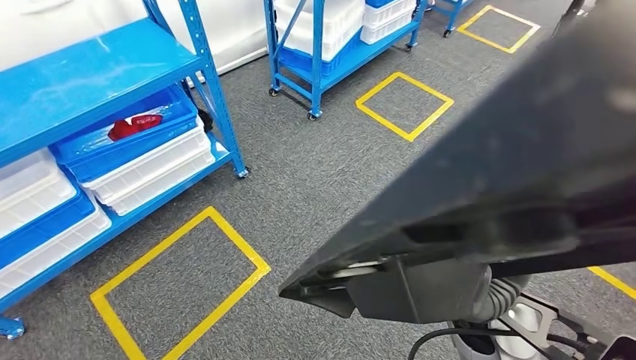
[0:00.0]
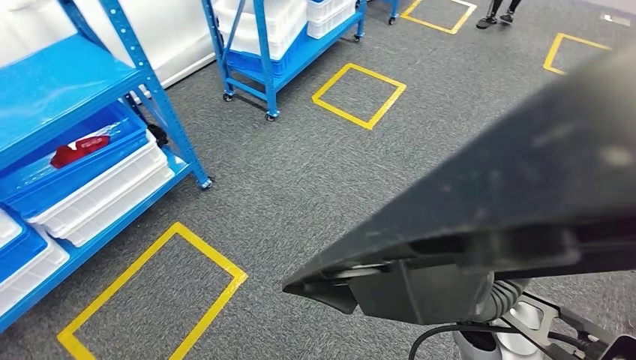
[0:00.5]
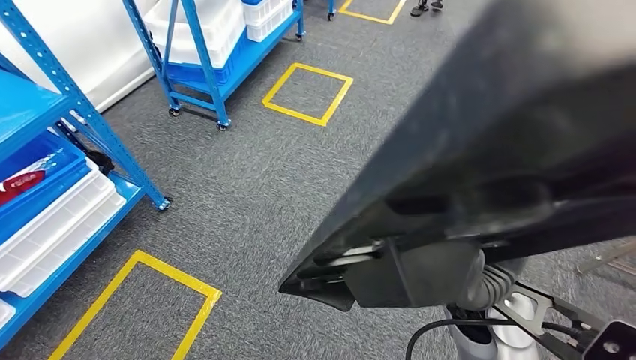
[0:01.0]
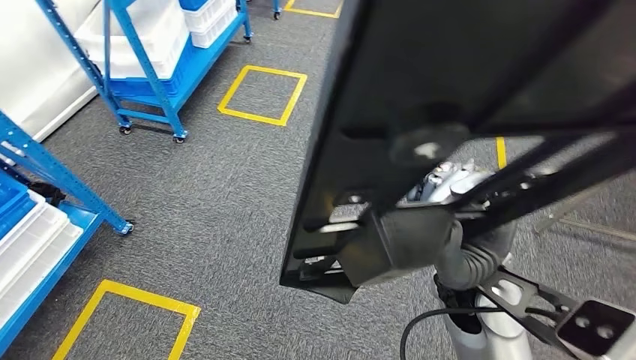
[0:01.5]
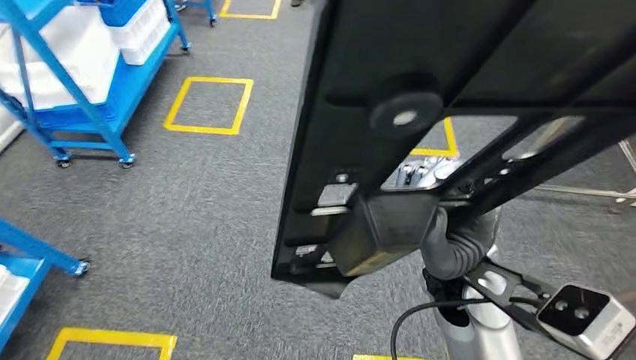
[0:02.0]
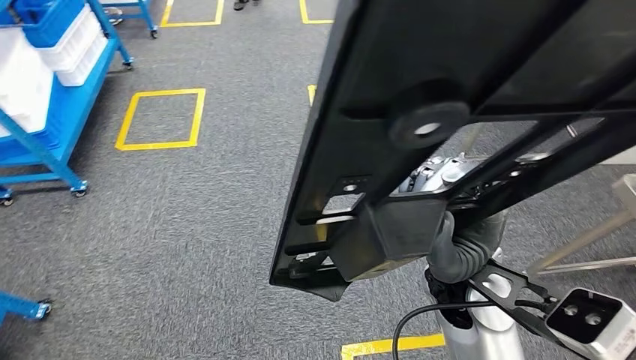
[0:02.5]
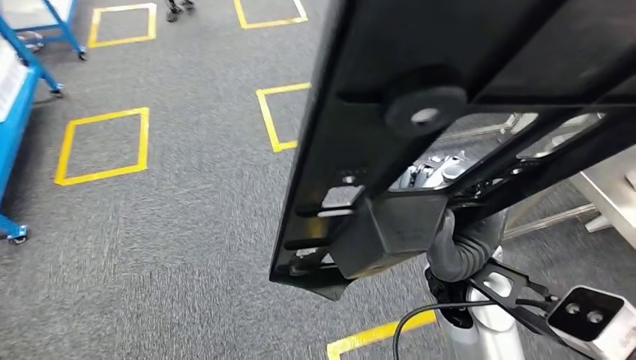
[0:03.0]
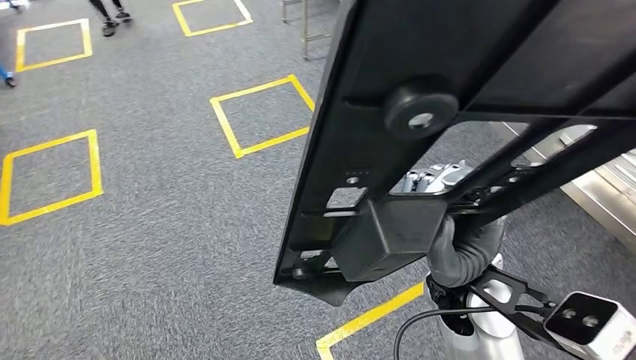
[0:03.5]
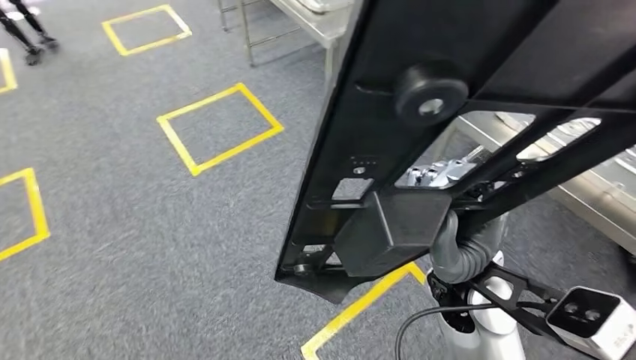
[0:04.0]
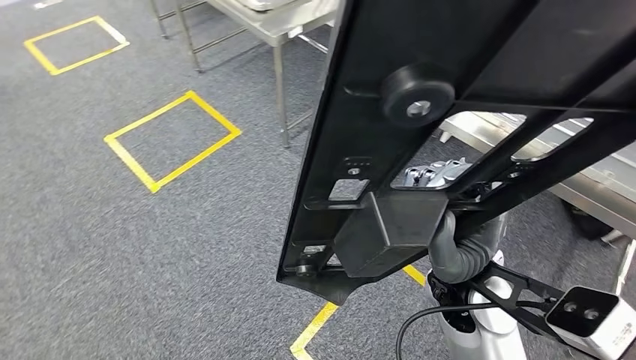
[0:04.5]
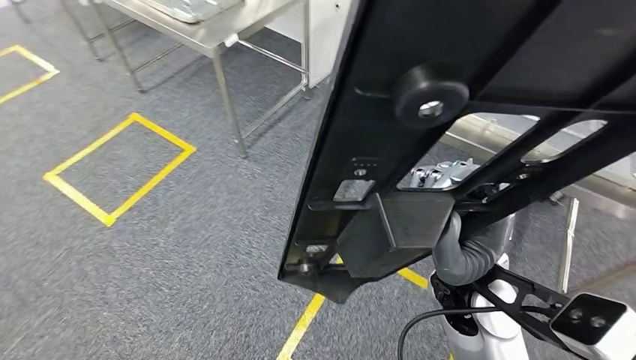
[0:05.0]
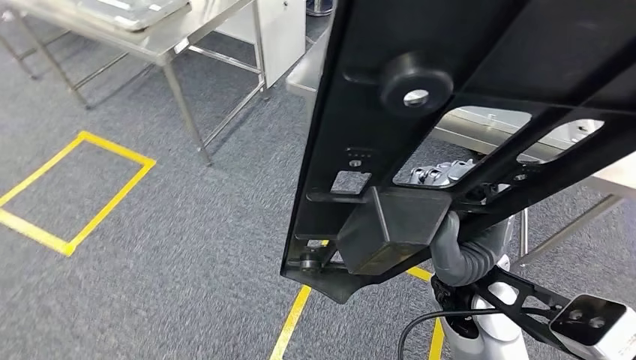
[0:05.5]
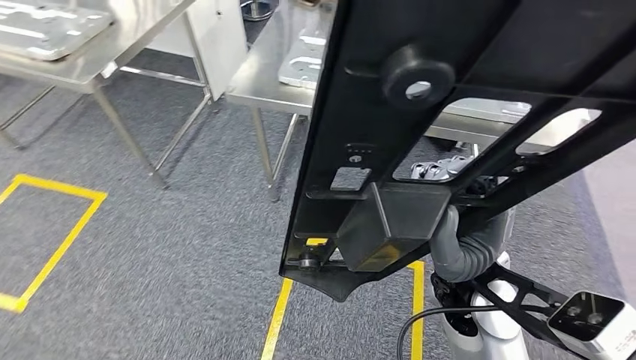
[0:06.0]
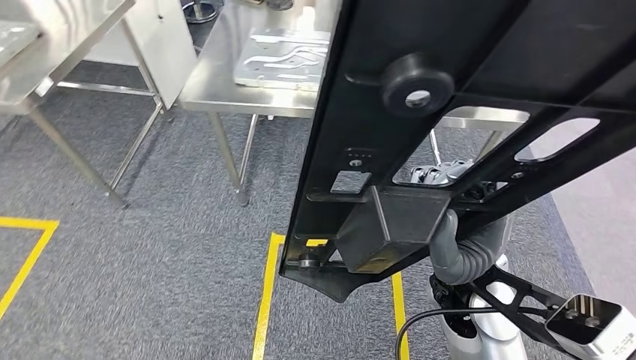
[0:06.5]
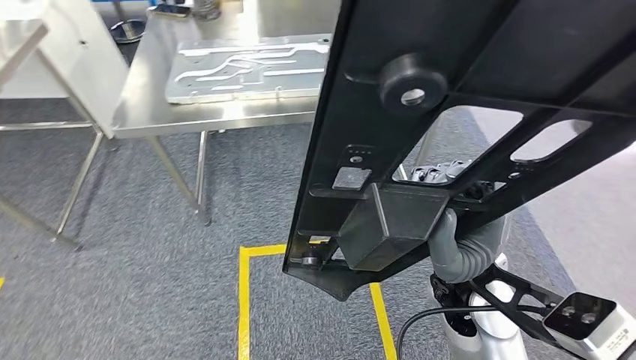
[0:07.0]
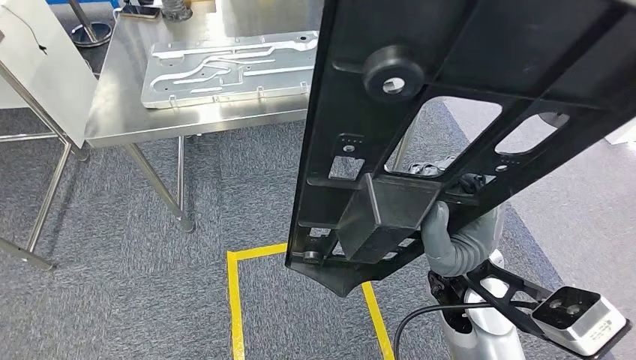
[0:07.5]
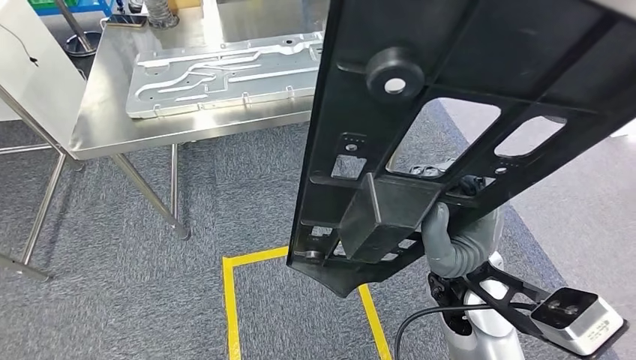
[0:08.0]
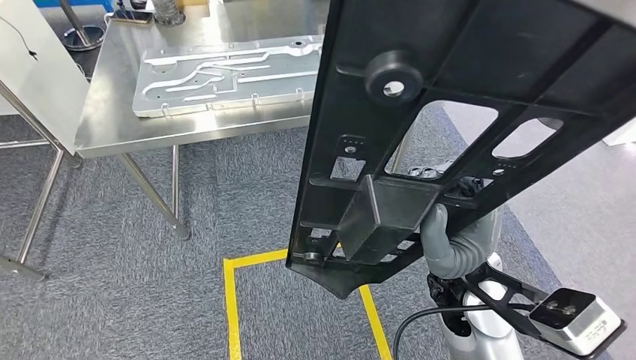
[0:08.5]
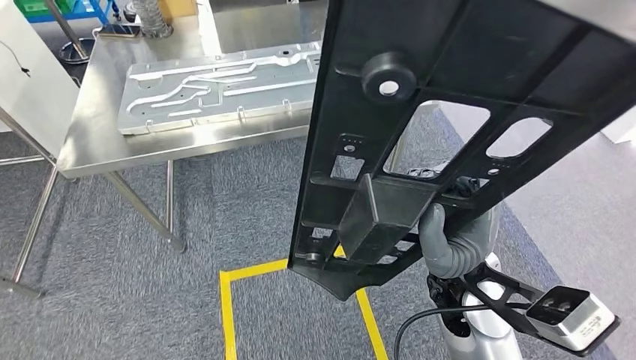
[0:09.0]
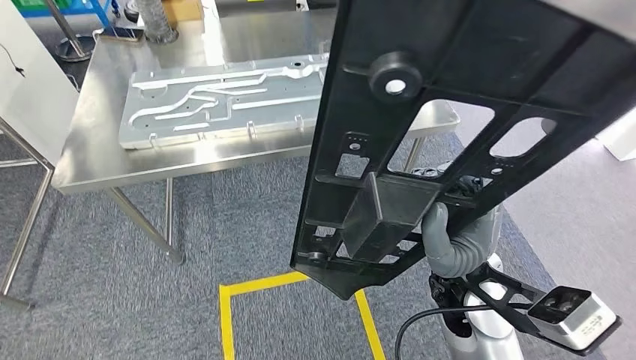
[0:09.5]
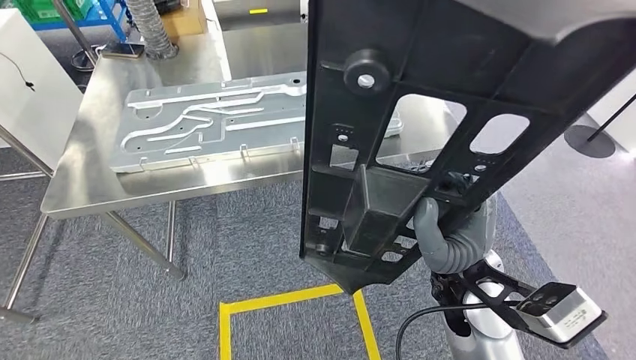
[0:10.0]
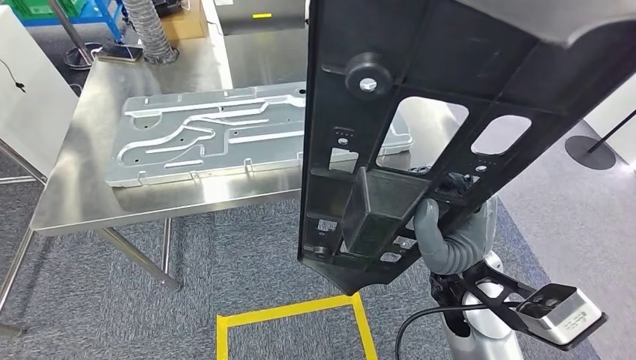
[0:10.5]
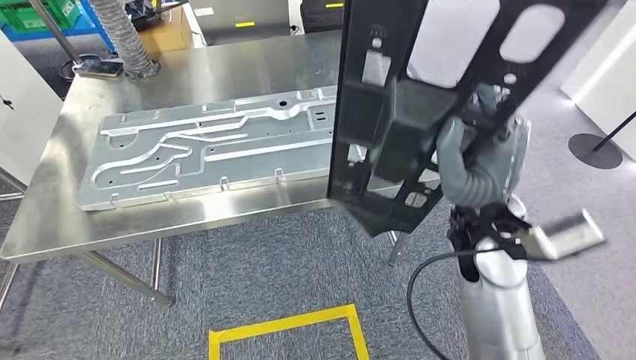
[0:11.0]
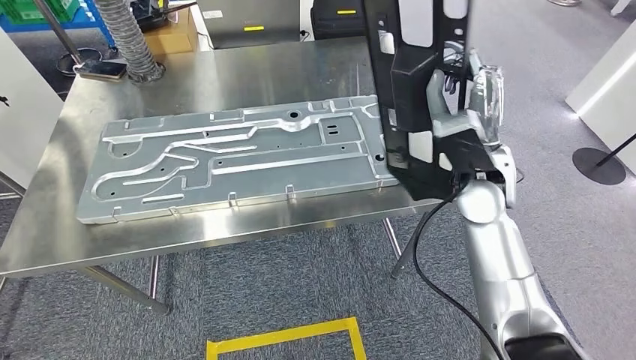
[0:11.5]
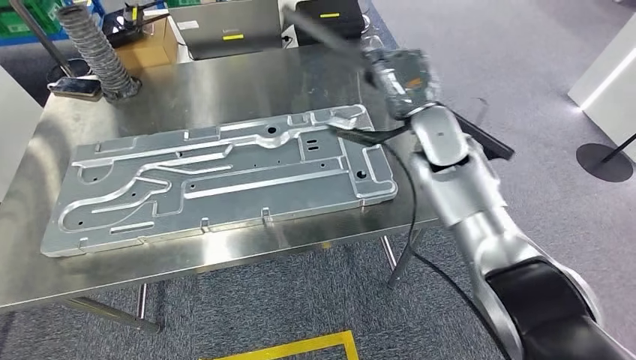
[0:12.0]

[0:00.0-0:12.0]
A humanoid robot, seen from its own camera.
Step, 0:00.0 to 0:11.5: Move the large material to the workbench.

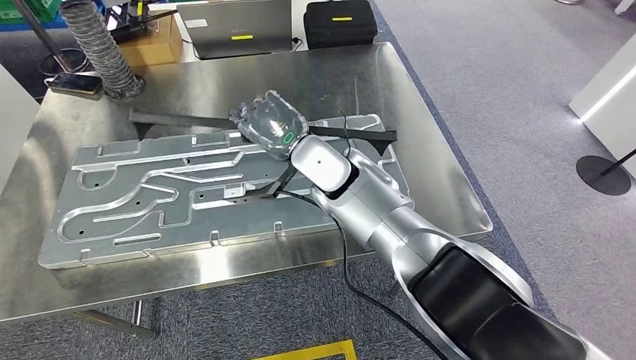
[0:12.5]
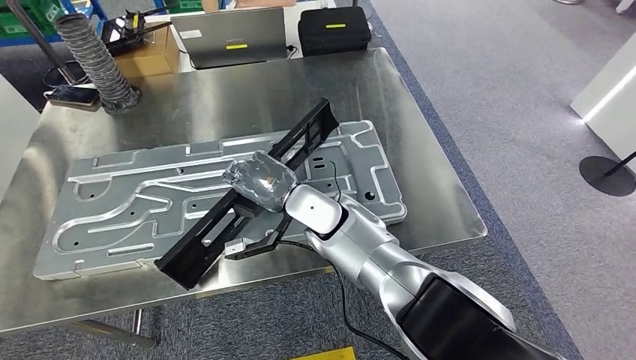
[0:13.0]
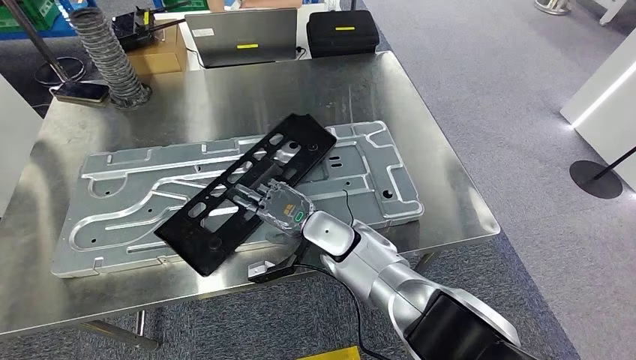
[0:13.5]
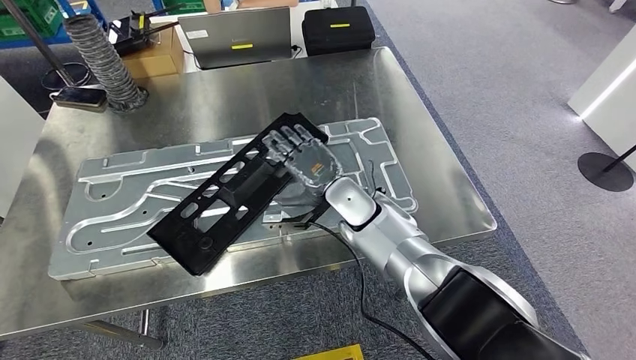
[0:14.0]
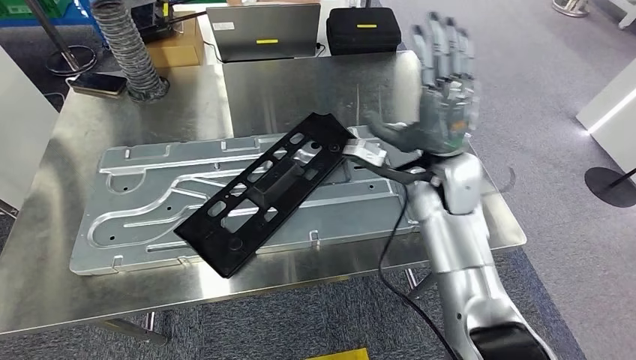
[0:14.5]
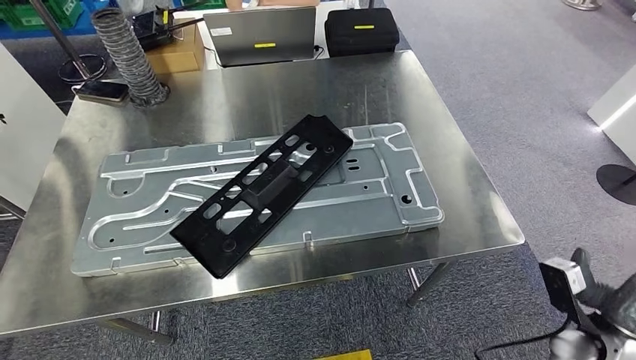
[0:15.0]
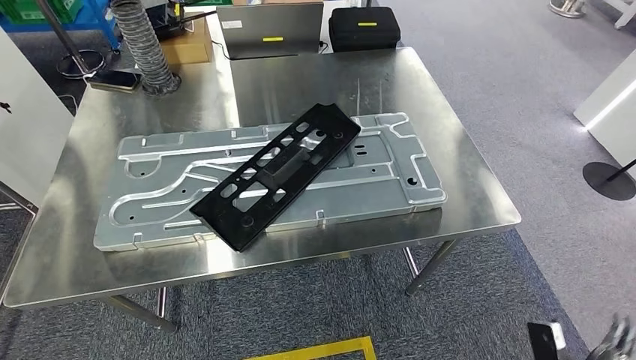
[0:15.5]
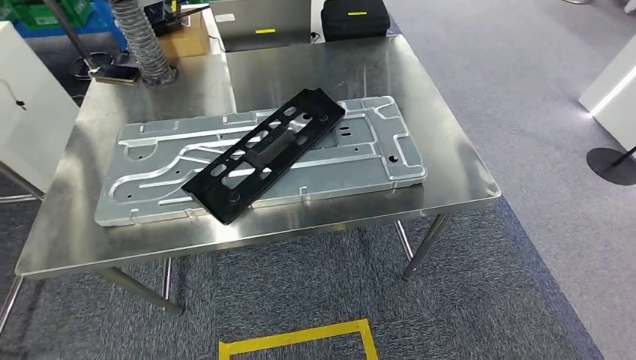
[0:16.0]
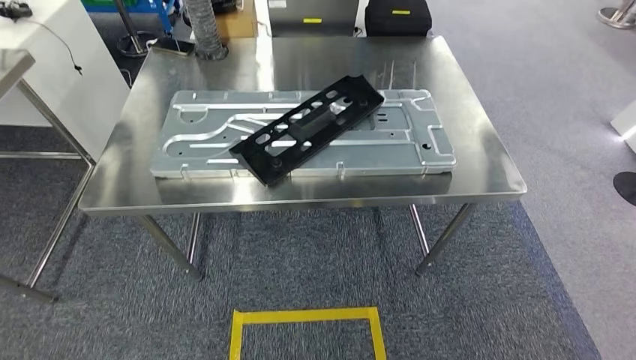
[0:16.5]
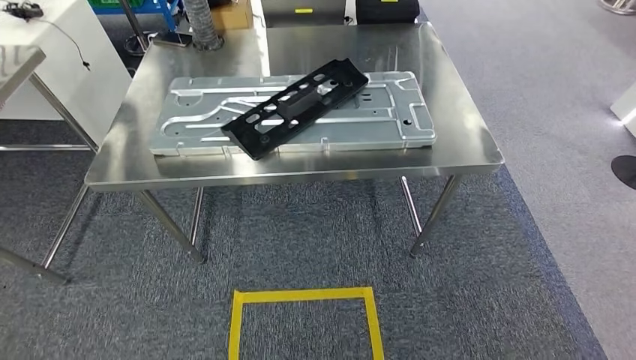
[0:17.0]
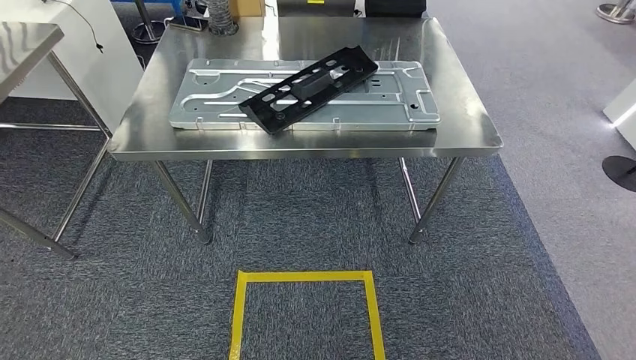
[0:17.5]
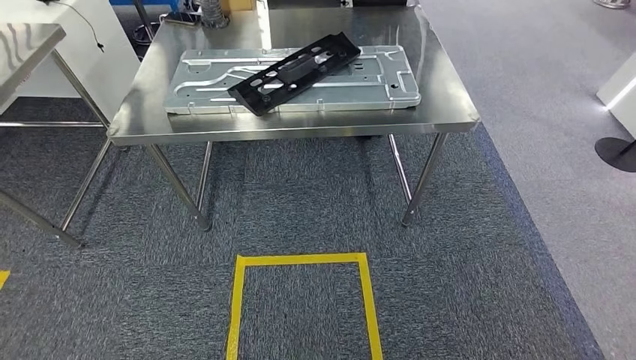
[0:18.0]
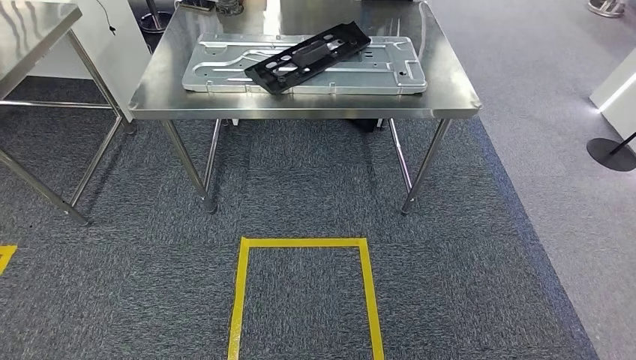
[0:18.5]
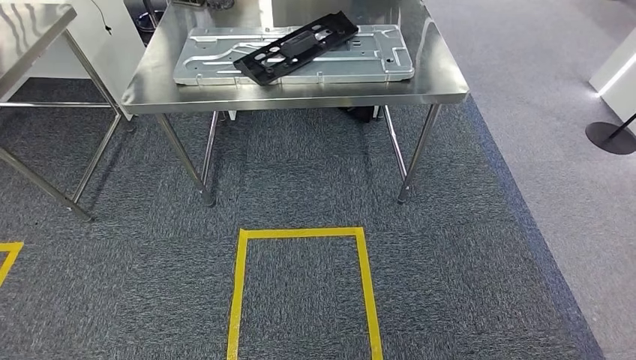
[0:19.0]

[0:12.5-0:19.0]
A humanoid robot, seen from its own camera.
Step, 0:12.5 to 0:13.5: Insert the large material into the corresponding slot on the workbench.
Step, 0:14.0 to 0:19.0: Move to the initial position of the shelf.

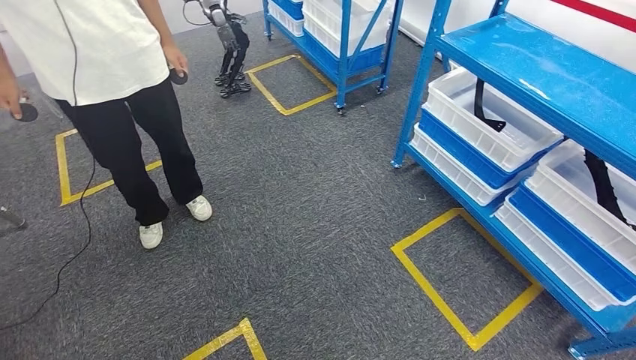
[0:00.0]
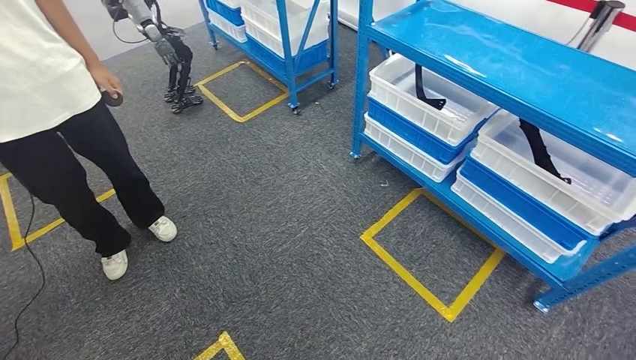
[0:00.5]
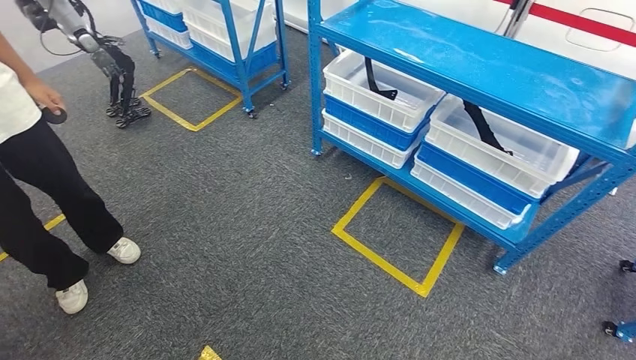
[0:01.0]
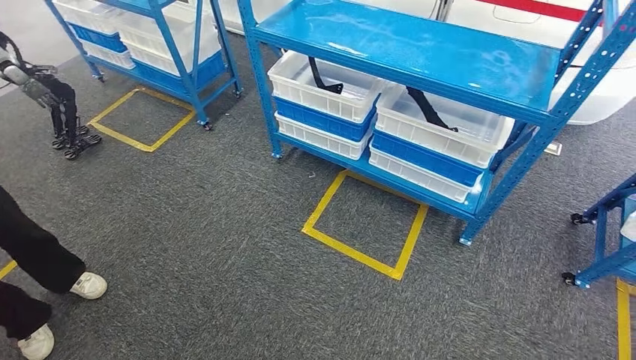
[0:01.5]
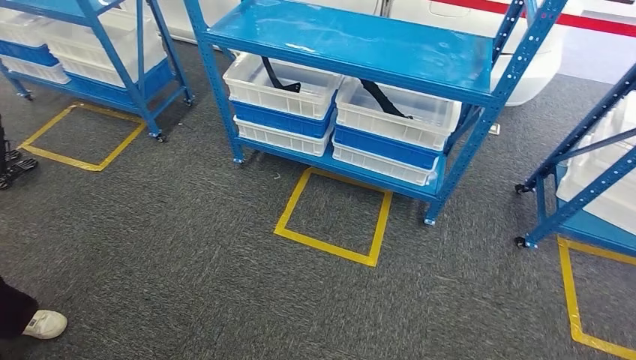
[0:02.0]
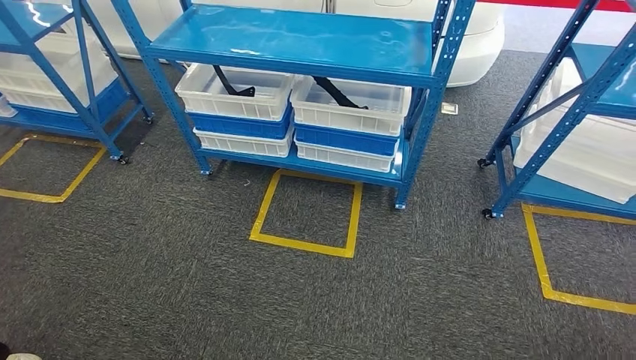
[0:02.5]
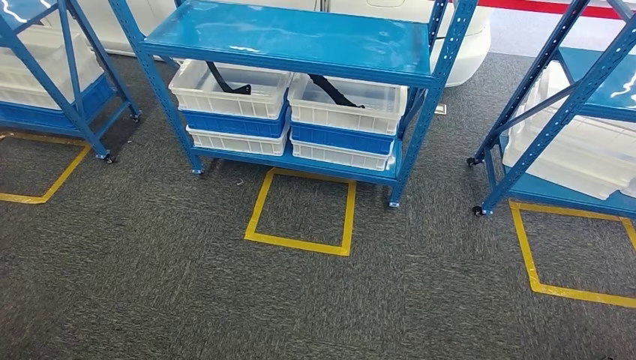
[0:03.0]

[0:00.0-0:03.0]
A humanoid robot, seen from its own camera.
Step, 0:00.0 to 0:03.0: Move to the initial position of the shelf.
